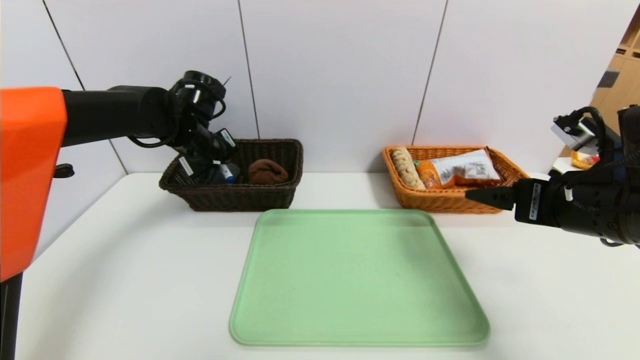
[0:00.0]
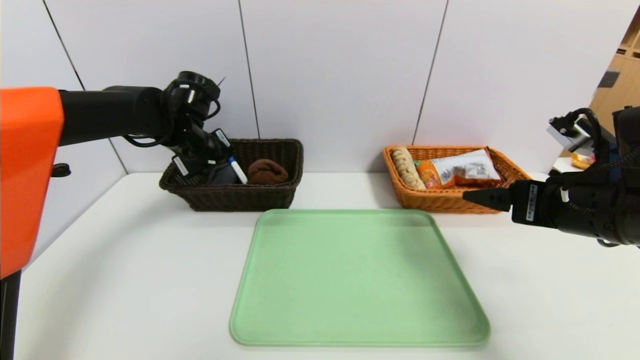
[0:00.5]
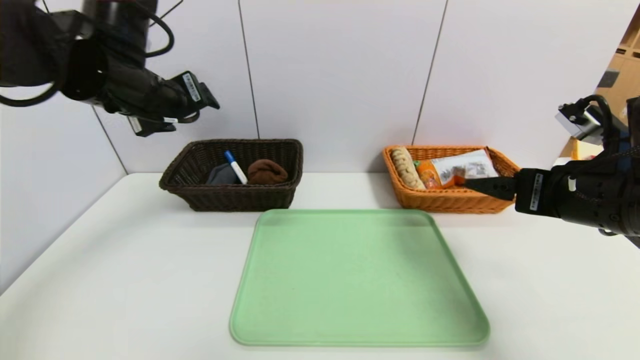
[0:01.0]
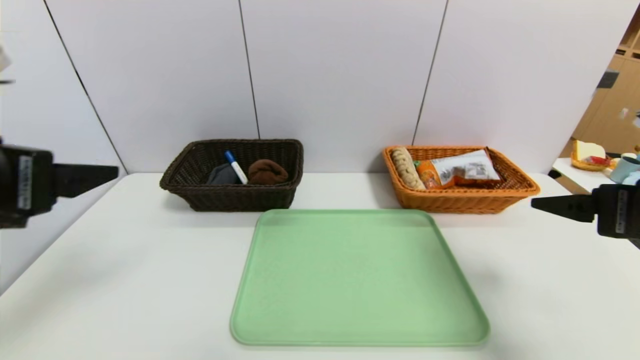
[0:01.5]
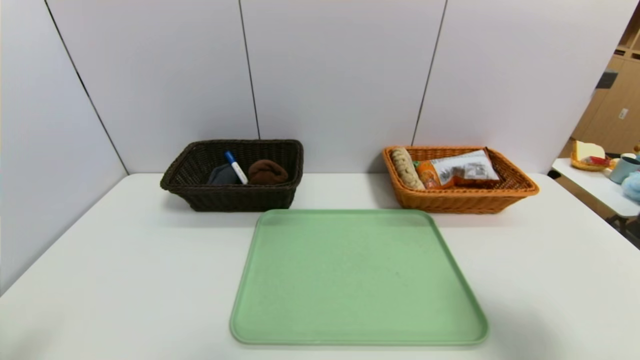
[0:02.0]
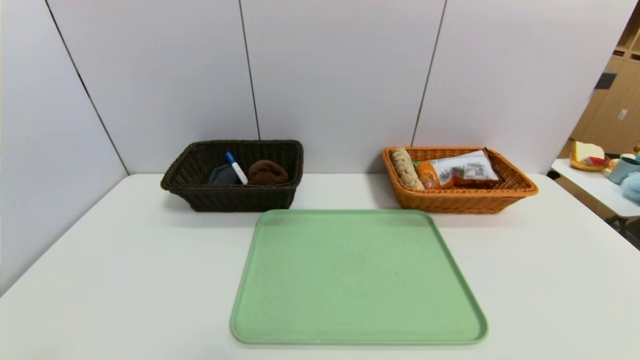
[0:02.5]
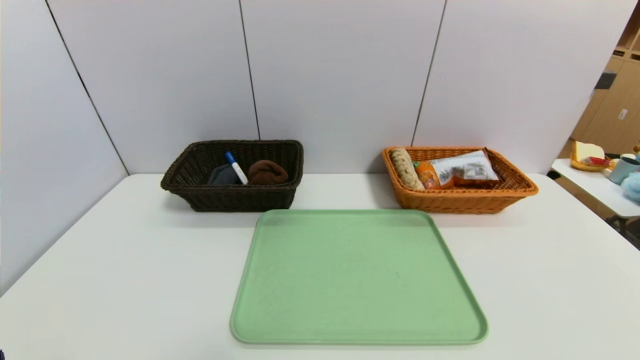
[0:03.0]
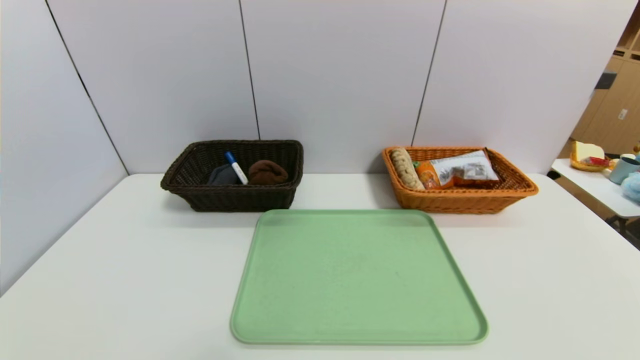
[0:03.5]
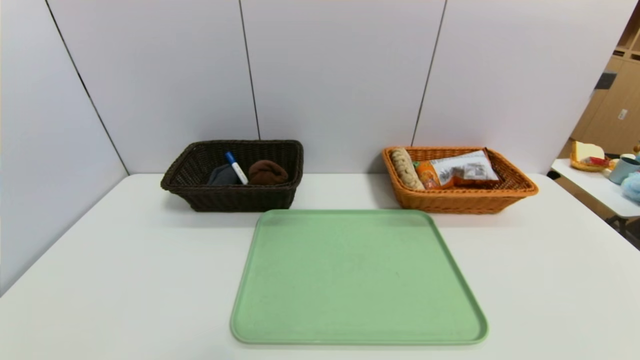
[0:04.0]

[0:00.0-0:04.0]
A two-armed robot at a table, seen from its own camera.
Task of the whole recording: place the food in the right basket with the right gripper, and place the non food items in the left basket with the left gripper.
0:00.0 to 0:02.0: The left gripper shifts roughly 40 cm backward, and opens its fingers, while the right gripper heads backward, covering roughly 15 cm.
0:02.0 to 0:04.0: The right gripper moves downward and backward, approximately 20 cm.
